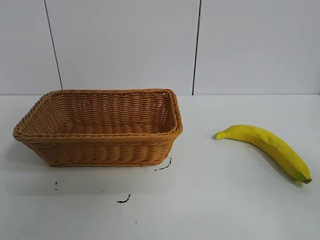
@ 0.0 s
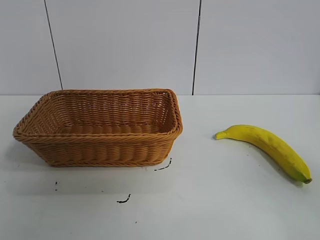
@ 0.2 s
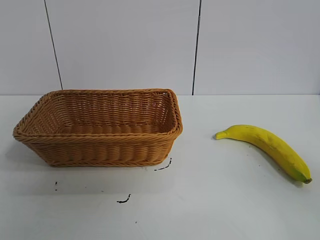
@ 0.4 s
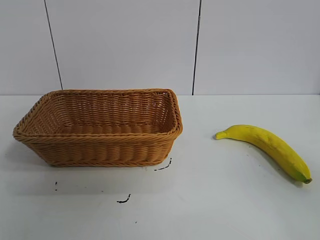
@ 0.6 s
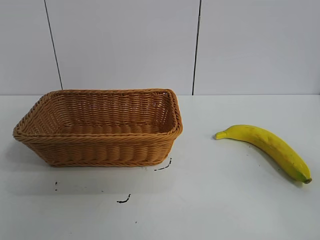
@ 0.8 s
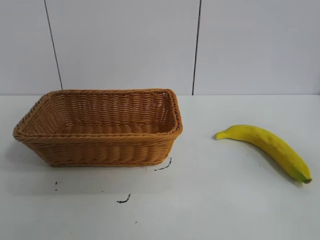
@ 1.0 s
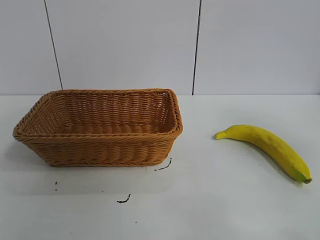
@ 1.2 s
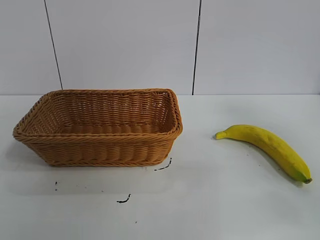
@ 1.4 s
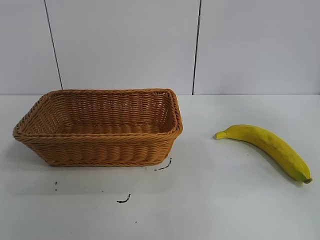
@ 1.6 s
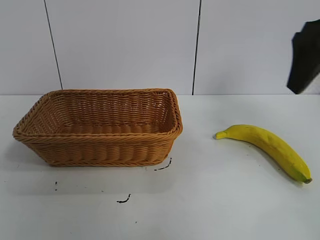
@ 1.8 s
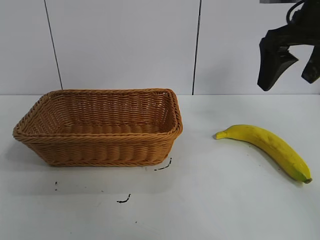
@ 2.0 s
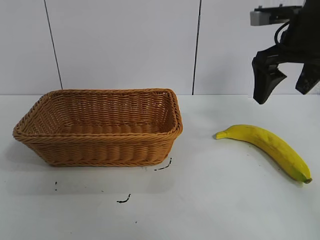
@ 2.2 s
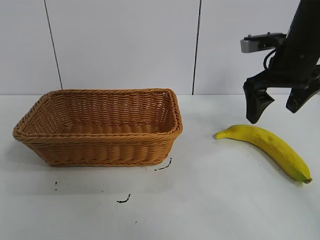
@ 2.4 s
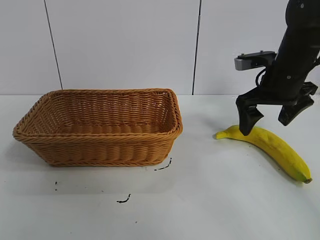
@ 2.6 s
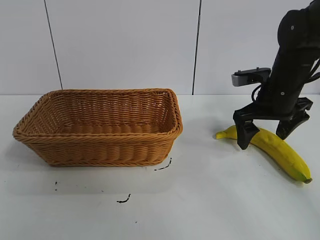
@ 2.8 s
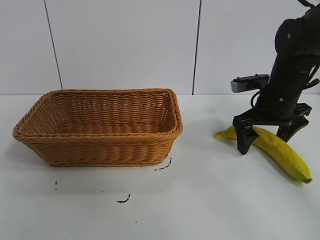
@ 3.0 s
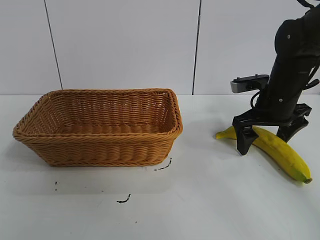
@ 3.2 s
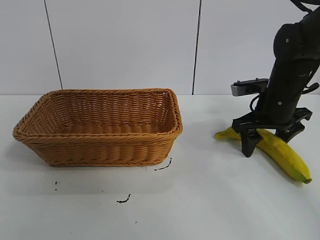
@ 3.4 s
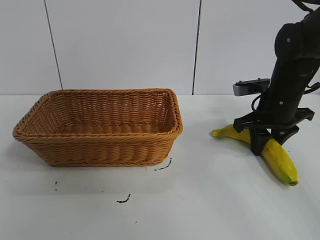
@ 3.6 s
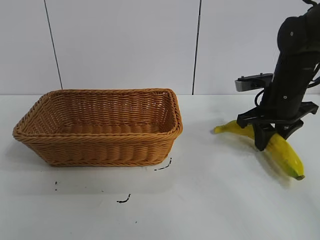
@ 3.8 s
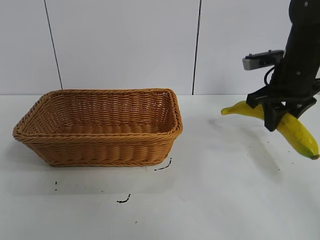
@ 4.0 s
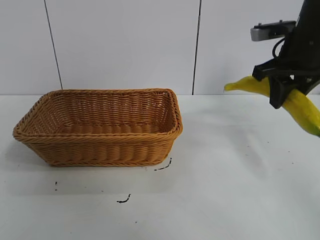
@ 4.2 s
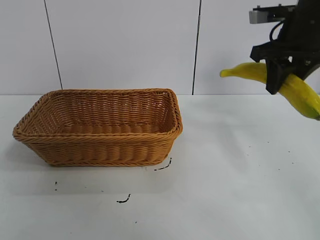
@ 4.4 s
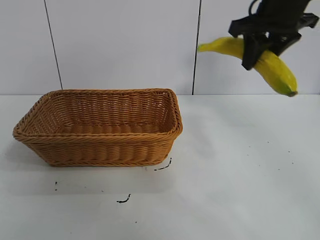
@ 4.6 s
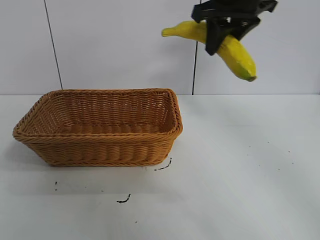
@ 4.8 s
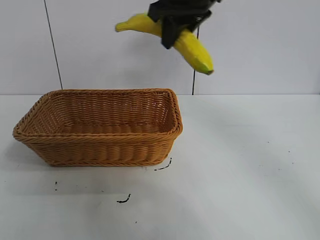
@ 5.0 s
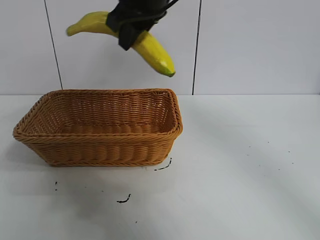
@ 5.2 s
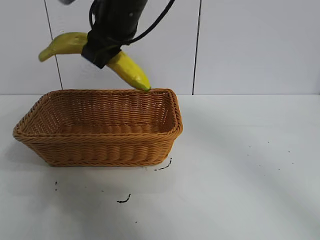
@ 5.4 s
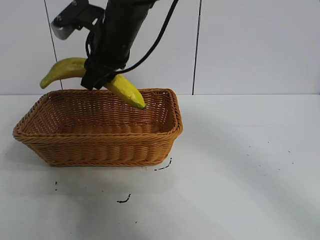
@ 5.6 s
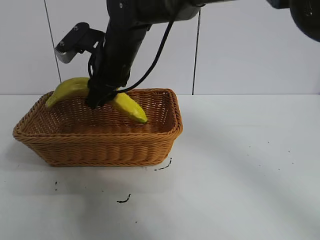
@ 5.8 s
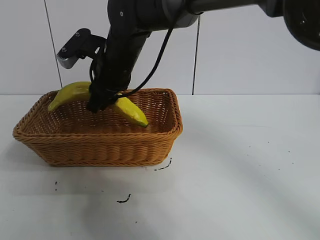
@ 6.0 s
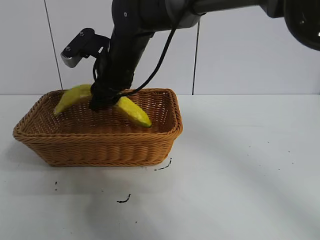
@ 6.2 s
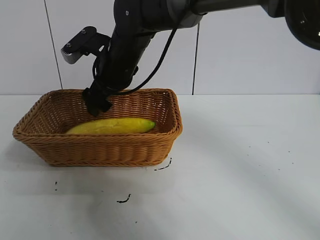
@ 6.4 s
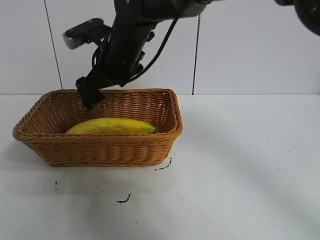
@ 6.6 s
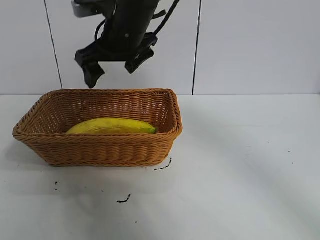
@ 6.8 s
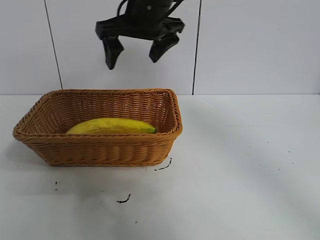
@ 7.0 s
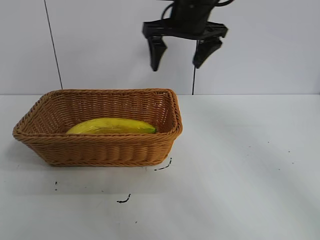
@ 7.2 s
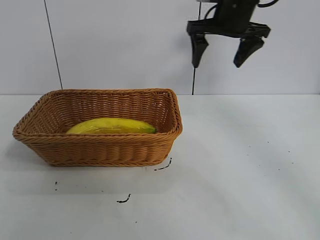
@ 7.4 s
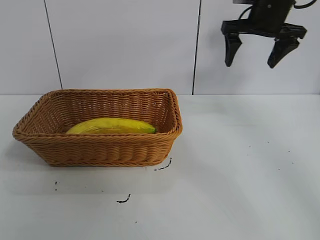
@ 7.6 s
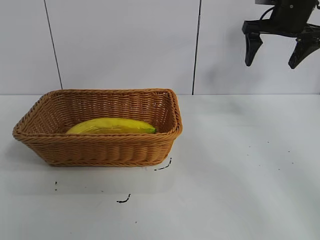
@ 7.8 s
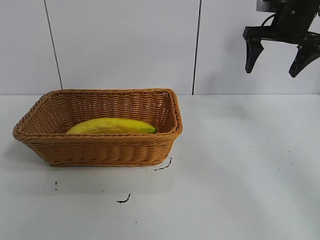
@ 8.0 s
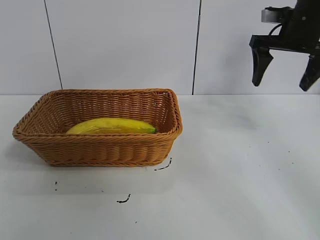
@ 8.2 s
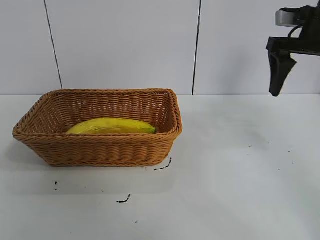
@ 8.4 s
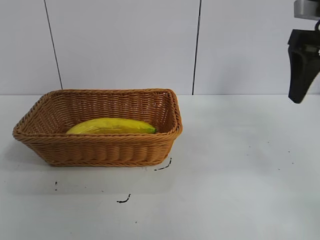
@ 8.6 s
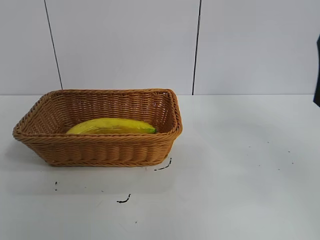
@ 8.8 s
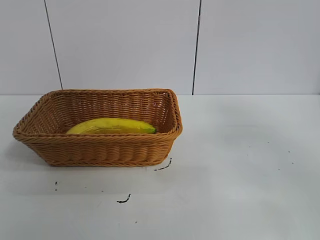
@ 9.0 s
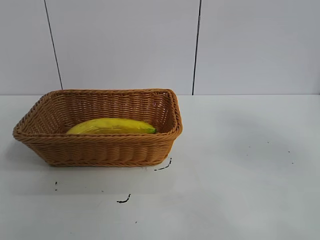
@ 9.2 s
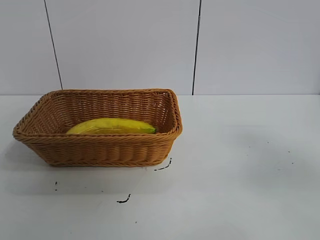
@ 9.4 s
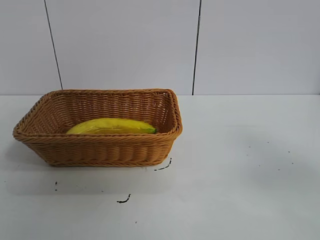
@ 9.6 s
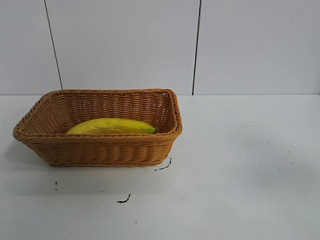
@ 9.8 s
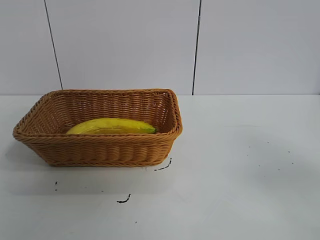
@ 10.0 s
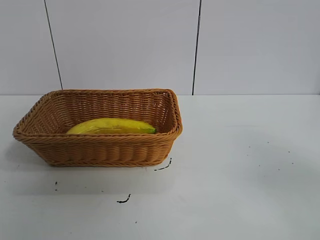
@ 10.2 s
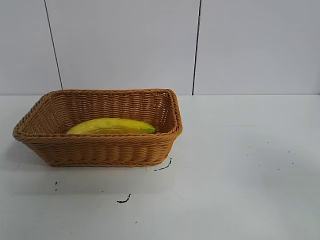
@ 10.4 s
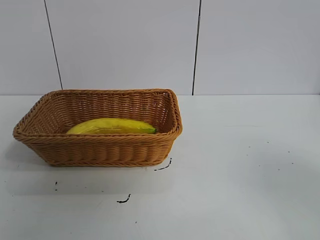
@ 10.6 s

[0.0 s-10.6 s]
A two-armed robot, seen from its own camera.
Task of the whole recording: pick up the banana and put it into the basket.
Step, 0.6 to 3.4 s: Grasp the banana with right gripper.
Step, 3.6 to 6.4 s: Place the banana in the basket with right gripper.
